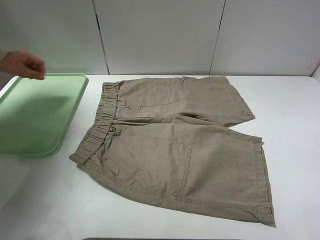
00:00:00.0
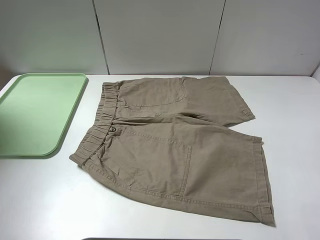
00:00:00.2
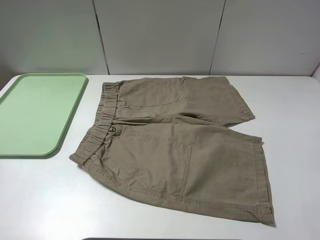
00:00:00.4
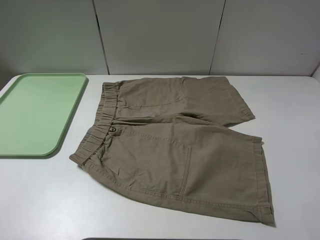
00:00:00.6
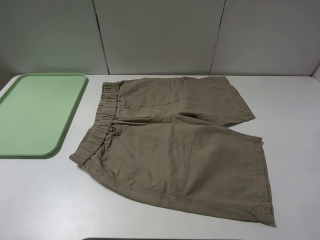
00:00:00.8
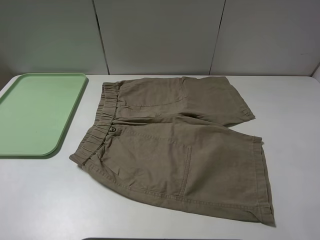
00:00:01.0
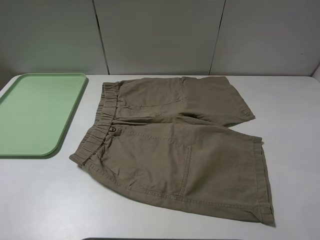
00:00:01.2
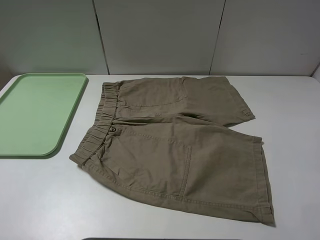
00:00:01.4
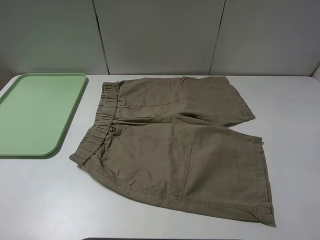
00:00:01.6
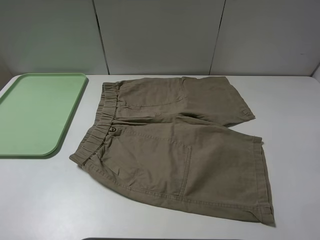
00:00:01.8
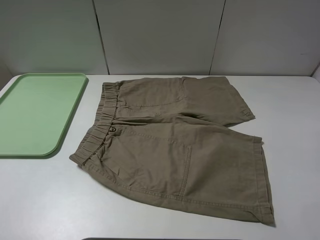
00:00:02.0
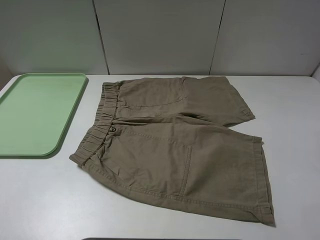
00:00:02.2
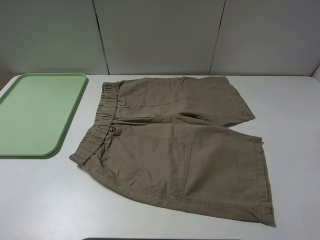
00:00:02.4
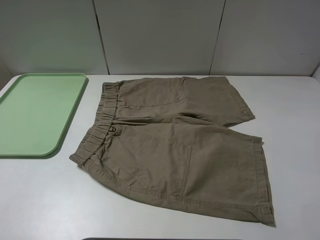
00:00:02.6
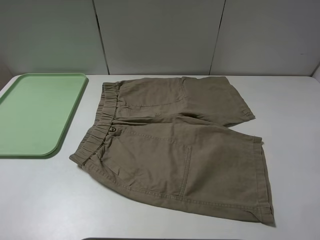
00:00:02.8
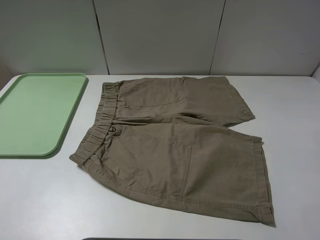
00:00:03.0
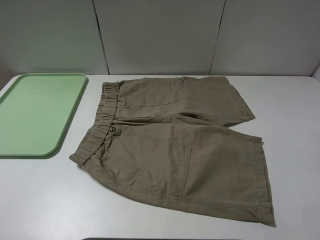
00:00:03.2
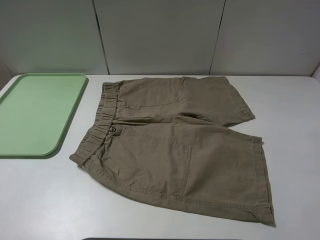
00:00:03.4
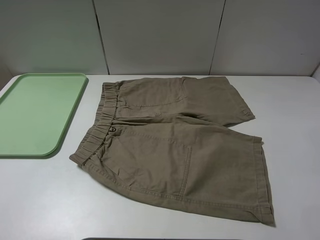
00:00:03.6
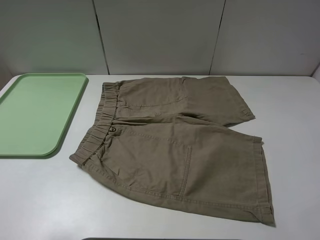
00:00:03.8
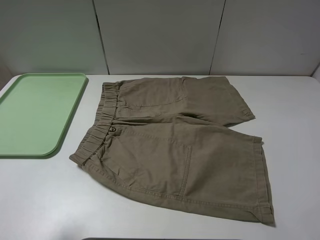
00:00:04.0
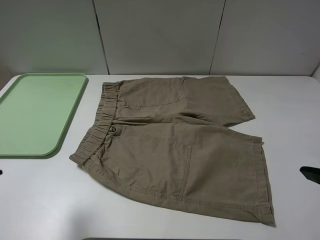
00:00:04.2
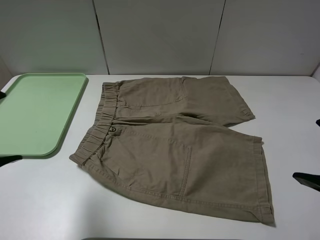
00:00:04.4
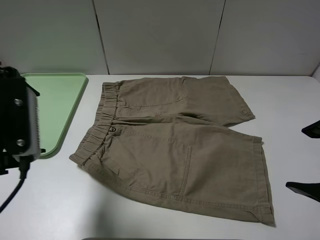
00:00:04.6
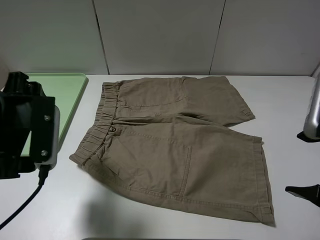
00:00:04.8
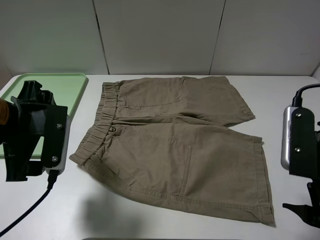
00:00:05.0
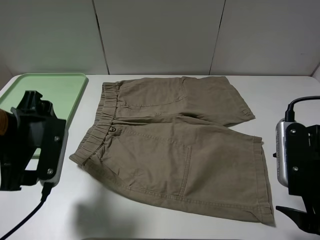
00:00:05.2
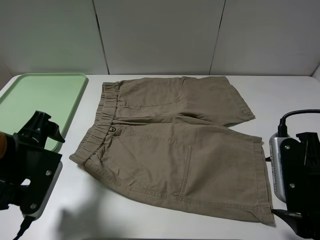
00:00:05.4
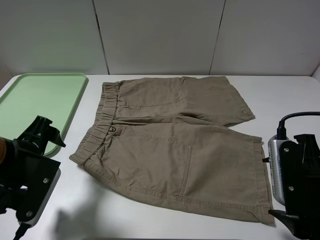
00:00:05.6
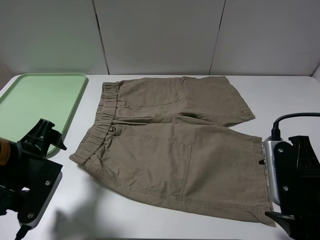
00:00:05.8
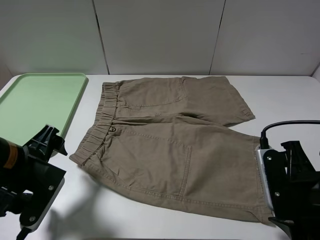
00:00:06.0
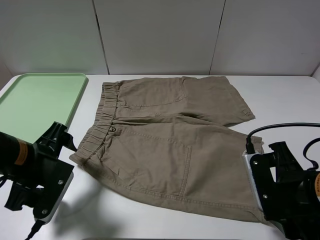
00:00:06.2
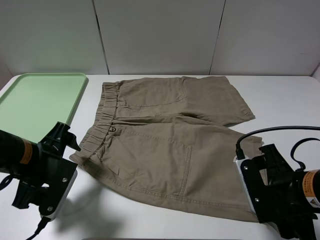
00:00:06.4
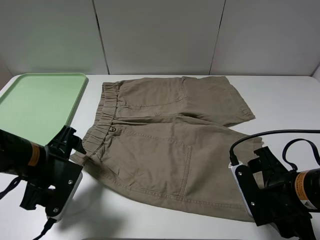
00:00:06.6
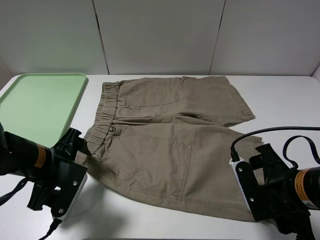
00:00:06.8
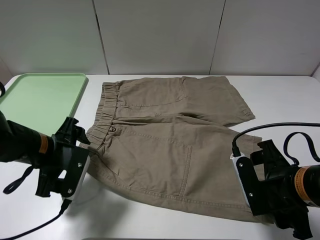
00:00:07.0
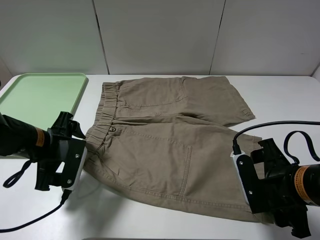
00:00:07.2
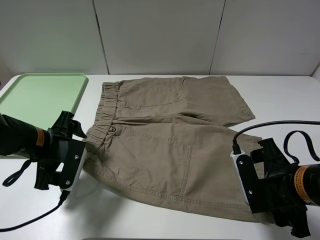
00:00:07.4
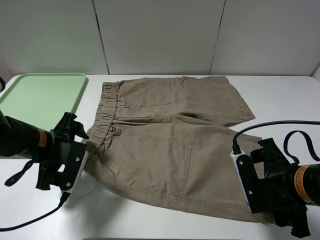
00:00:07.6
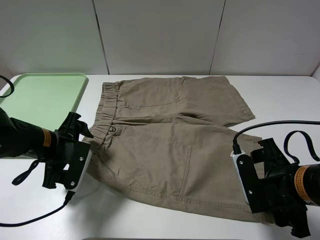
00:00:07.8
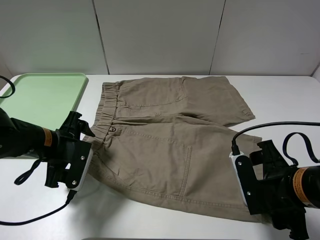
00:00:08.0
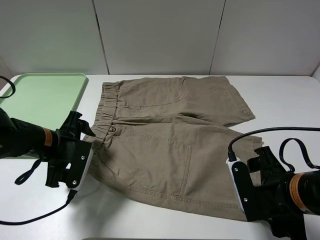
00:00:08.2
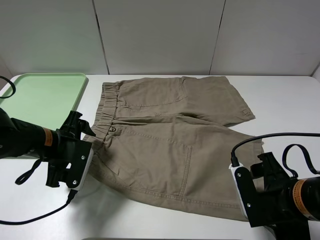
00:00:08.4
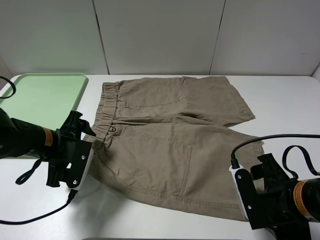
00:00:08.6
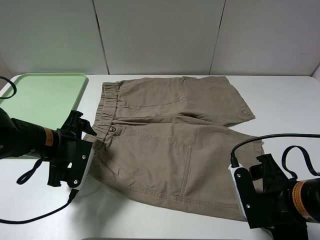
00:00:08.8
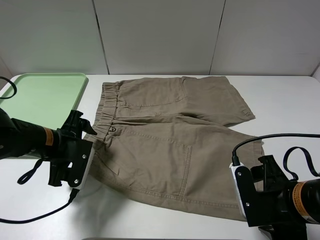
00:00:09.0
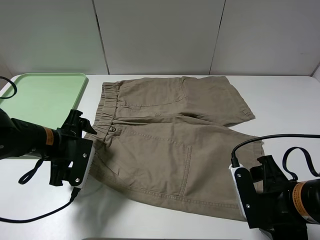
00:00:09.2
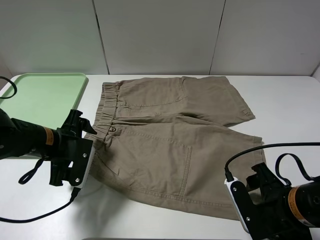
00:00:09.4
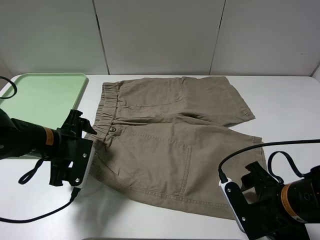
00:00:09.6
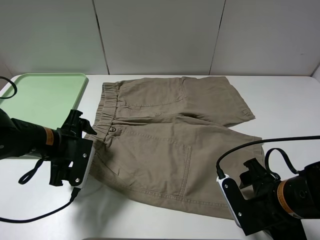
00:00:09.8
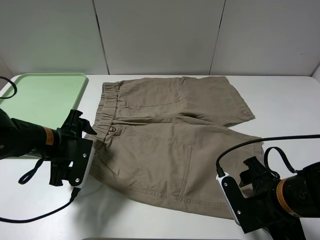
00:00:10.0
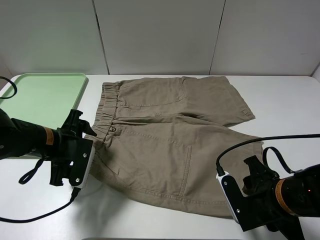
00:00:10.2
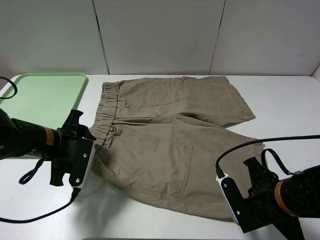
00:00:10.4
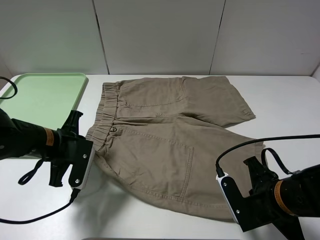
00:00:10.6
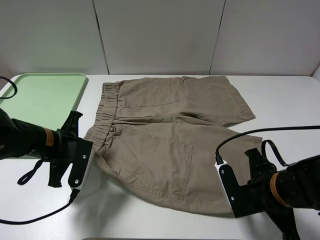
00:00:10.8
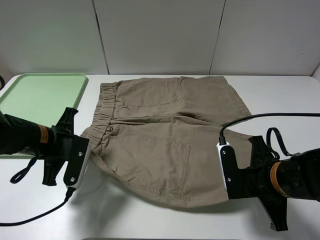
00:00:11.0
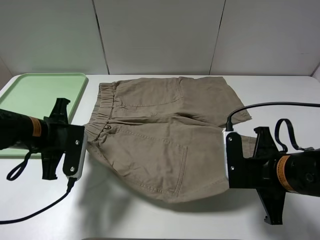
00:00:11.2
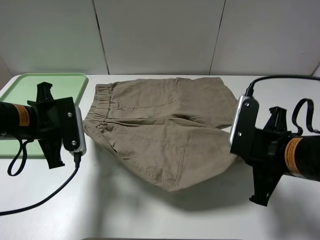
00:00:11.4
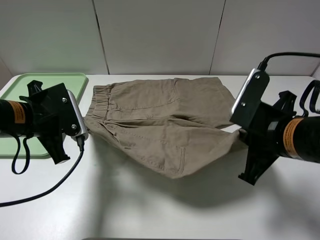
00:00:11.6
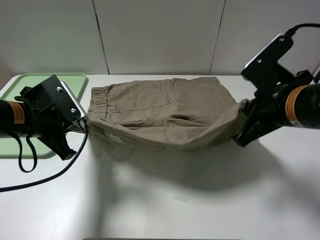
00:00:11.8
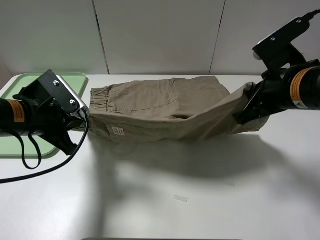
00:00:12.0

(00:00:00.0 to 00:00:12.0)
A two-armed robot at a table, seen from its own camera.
Task of the whole recording: fold the khaki jeans in half with two grippers, then fold them in half again, and use the left claw to place the folded fold khaki jeans on the tray.
Step, 00:00:00.0 - 00:00:10.6: Grasp the khaki trousers with the left gripper.
00:00:03.0 - 00:00:04.4: The left gripper moves forward and to the right, roughly 15 cm, while the right gripper is displaced forward and to the left by approximately 10 cm.
00:00:04.4 - 00:00:06.0: Both grippers travel together downward, some 15 cm.
00:00:06.0 - 00:00:07.6: The left gripper moves forward, about 5 cm.
00:00:07.6 - 00:00:09.0: The grippers move only a little.
00:00:09.0 - 00:00:10.4: The left gripper closes its fingers; the right gripper closes its fingers.
00:00:10.4 - 00:00:12.0: The right gripper heads upward and forward, covering approximately 15 cm. Meanwhile the left gripper shifts about 10 cm upward, and closes its fingers.

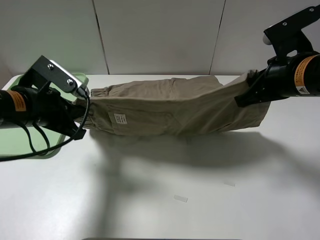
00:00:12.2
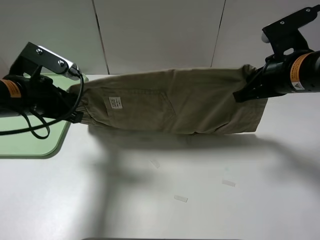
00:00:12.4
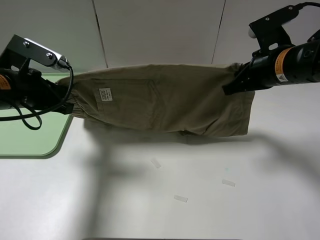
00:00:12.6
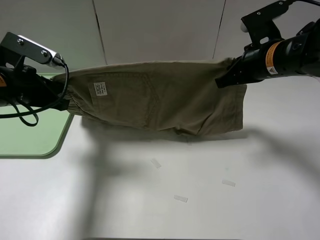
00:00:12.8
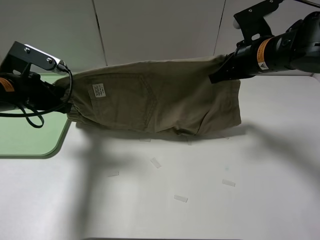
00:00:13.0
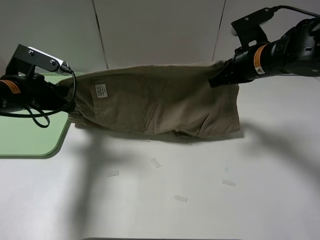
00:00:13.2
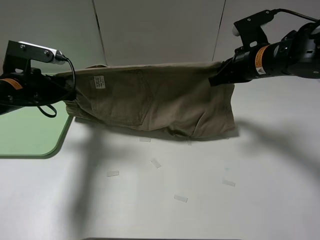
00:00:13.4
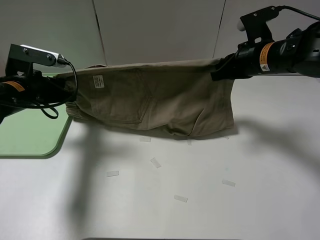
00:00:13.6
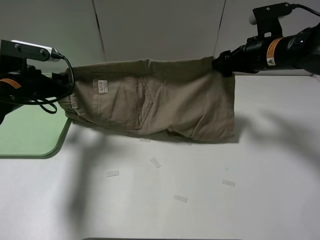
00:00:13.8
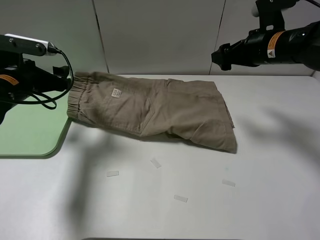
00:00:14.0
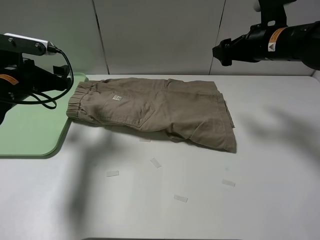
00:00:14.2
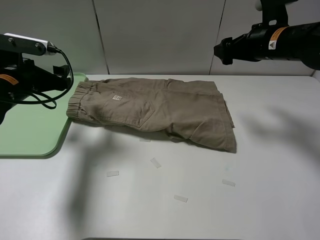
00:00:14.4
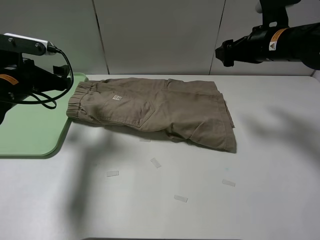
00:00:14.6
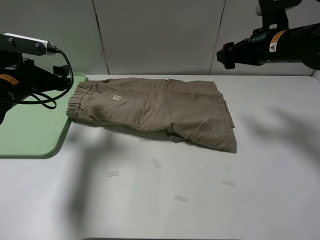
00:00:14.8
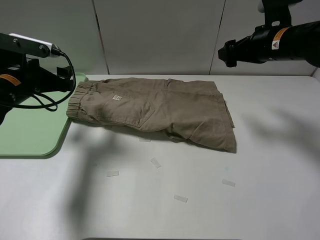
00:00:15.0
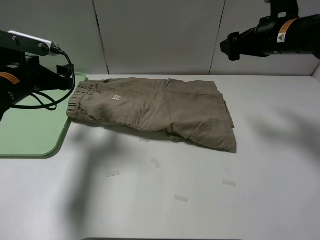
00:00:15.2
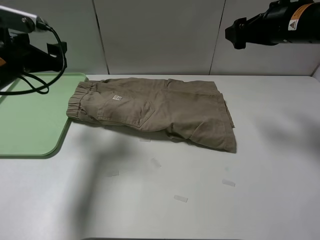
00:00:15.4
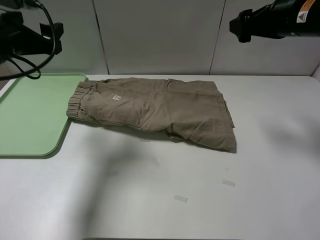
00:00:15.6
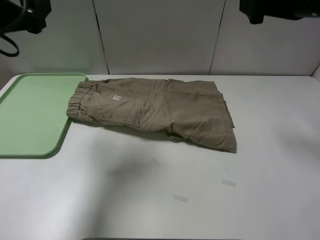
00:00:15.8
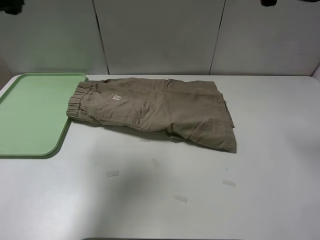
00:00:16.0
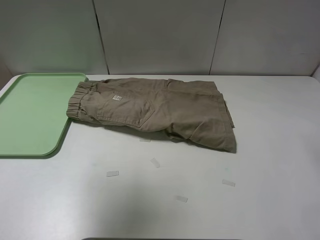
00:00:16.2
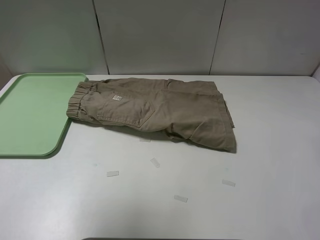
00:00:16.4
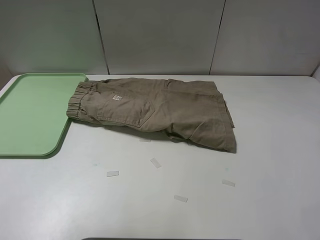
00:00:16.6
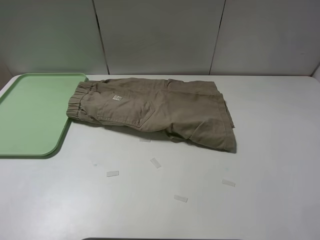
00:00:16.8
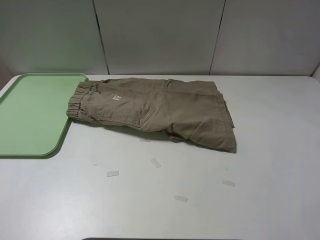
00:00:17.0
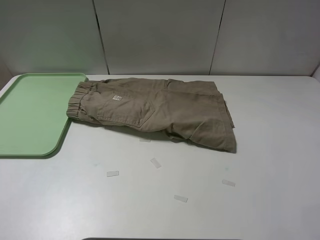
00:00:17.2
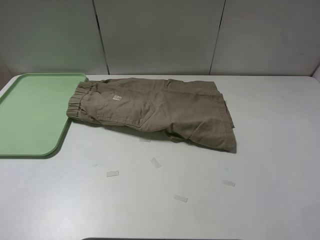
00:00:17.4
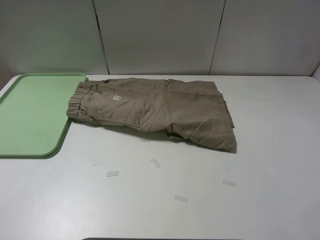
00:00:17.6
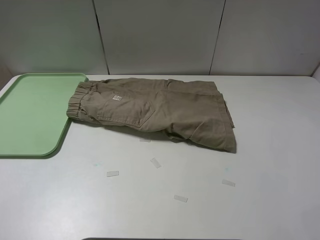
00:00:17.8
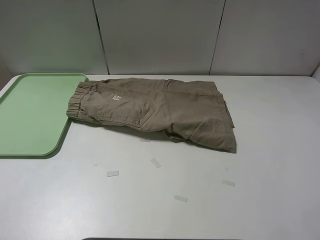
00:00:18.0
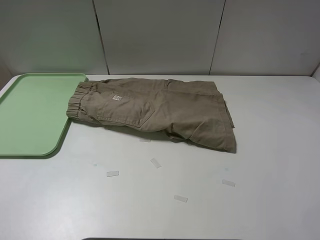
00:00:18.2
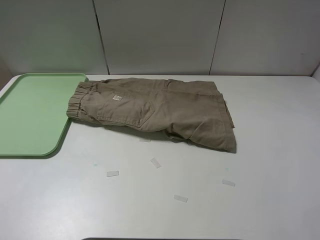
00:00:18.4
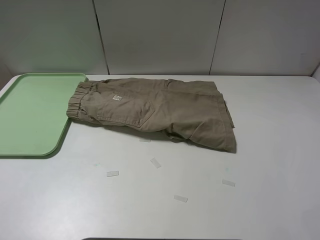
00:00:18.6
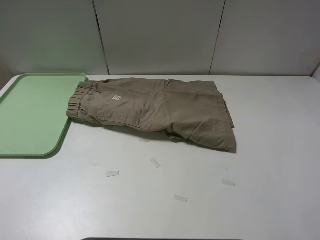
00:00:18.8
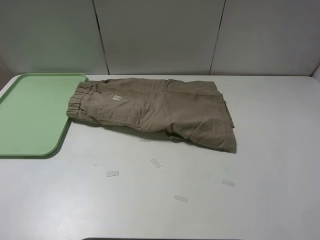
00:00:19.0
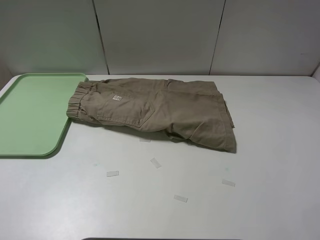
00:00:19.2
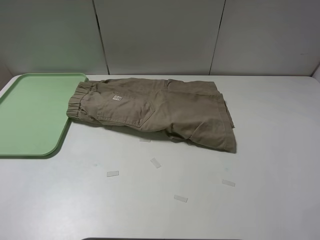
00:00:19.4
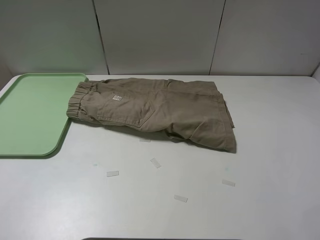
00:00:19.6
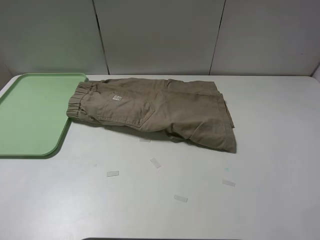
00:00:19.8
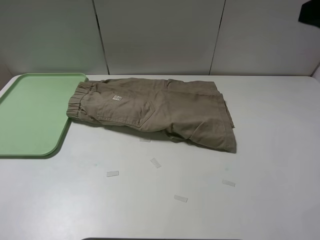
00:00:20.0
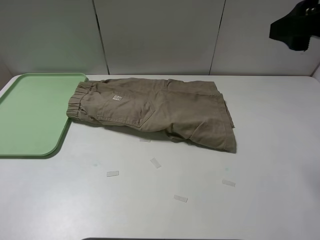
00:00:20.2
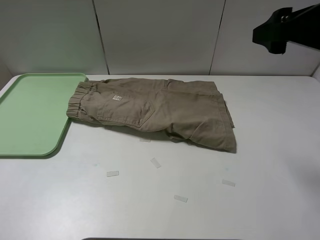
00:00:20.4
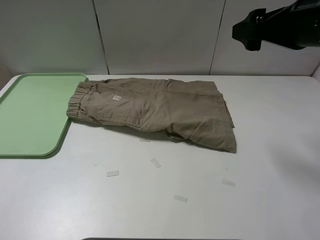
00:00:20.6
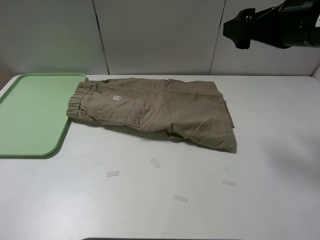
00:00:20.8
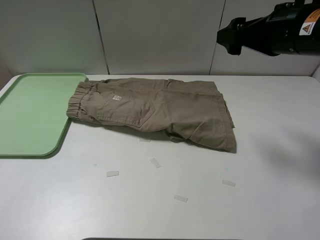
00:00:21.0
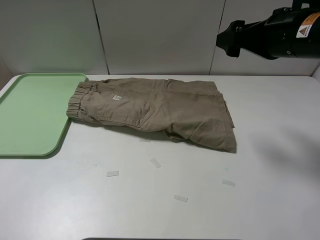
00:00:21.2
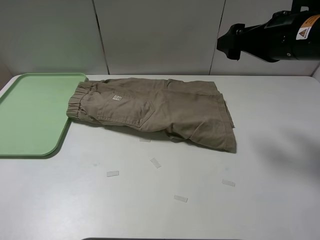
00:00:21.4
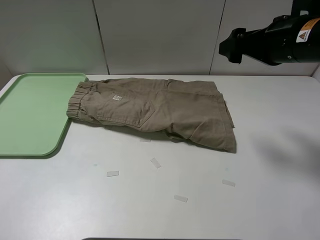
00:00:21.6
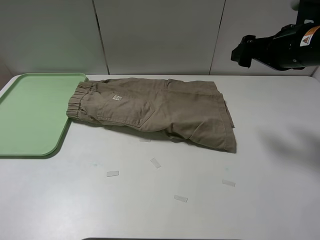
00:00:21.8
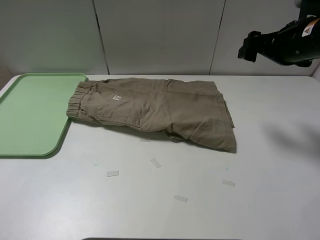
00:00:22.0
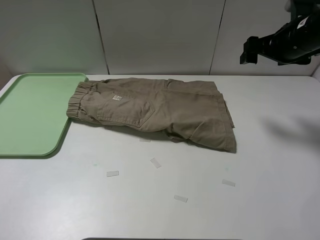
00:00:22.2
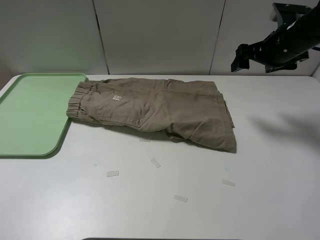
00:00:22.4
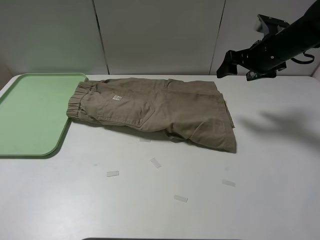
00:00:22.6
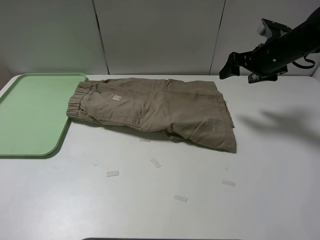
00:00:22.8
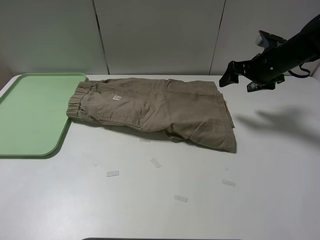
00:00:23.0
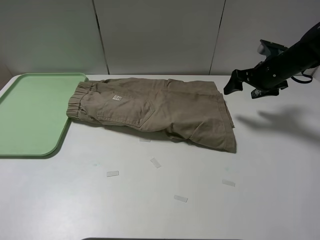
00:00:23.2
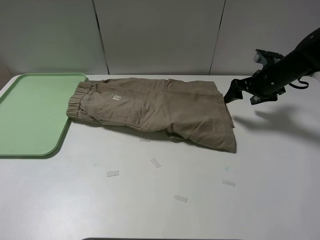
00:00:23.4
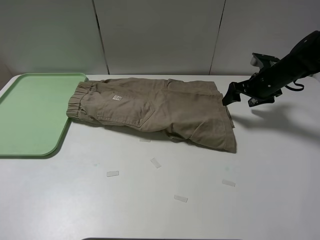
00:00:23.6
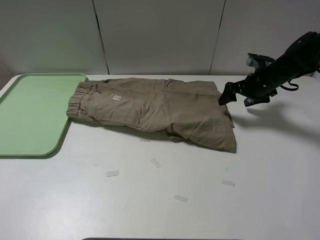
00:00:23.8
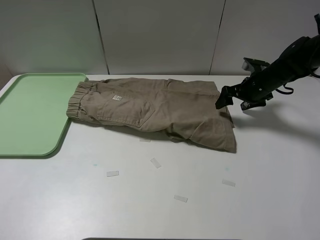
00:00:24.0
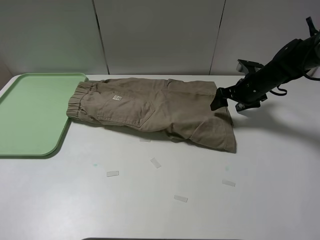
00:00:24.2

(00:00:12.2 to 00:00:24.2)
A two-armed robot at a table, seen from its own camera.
Task of the whole recording: fold the khaki jeans in half with two grippers, then fold them in half again, and use the left claw to place the folded fold khaki jeans on the tray.
Step, 00:00:12.2 - 00:00:14.0: Fold the khaki trousers upwards with the left gripper.
00:00:12.2 - 00:00:13.8: The left gripper travels forward and to the left by approximately 10 cm, and opens up. The right gripper heads forward, covering about 10 cm, and opens up.
00:00:15.2 - 00:00:16.6: Both grippers travel together upward and backward, roughly 25 cm.
00:00:16.6 - 00:00:18.2: The left gripper goes about 15 cm downward and backward.
00:00:19.8 - 00:00:21.2: The right gripper moves forward, downward and to the left, approximately 15 cm.
00:00:21.2 - 00:00:22.6: The right gripper moves forward and downward, roughly 15 cm.
00:00:22.6 - 00:00:24.2: The right gripper shifts about 10 cm downward.